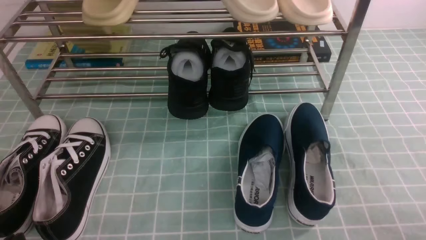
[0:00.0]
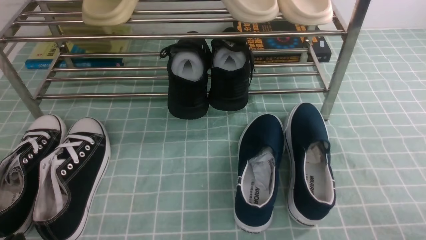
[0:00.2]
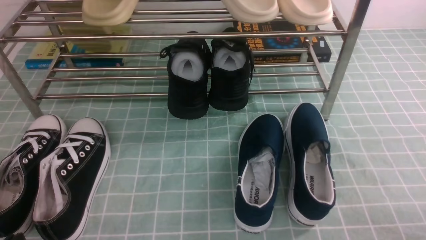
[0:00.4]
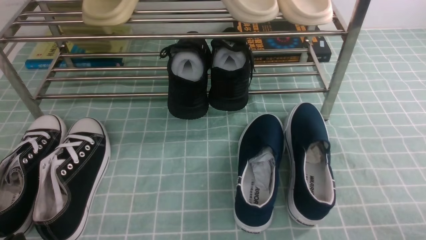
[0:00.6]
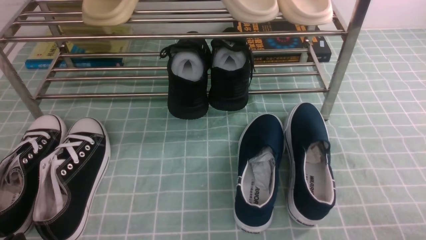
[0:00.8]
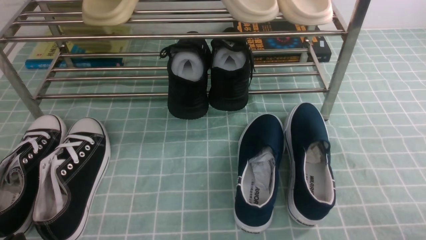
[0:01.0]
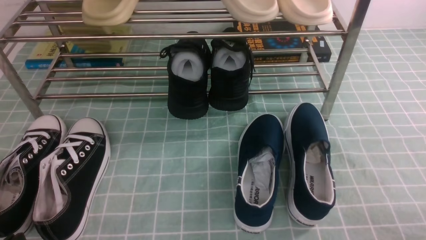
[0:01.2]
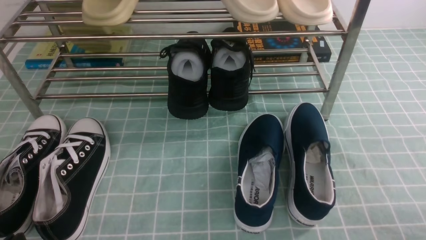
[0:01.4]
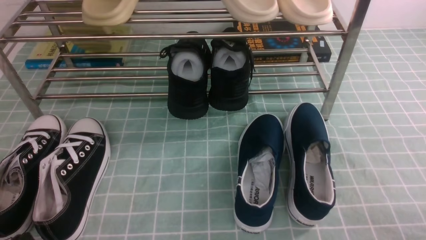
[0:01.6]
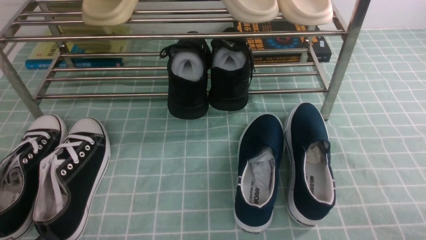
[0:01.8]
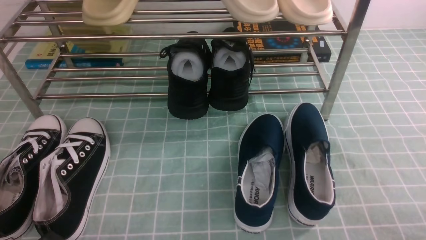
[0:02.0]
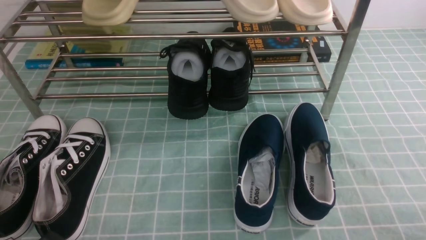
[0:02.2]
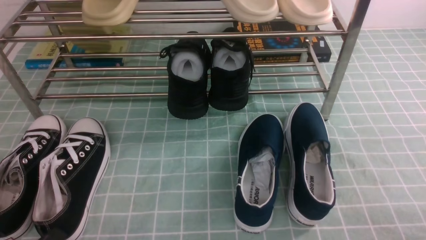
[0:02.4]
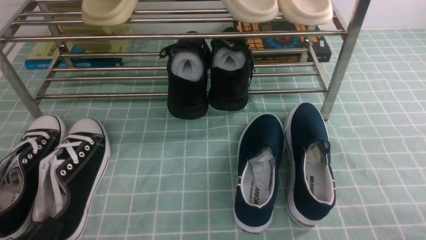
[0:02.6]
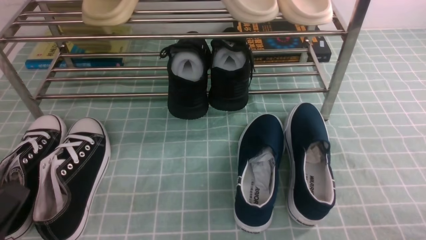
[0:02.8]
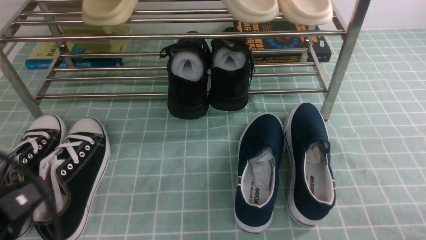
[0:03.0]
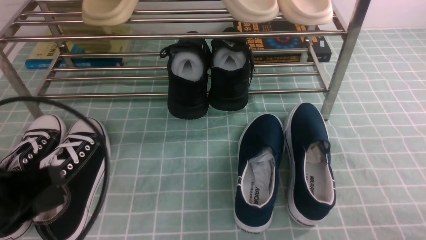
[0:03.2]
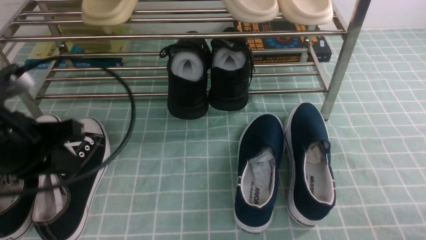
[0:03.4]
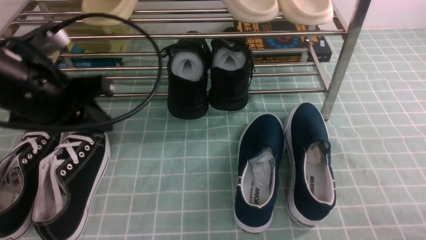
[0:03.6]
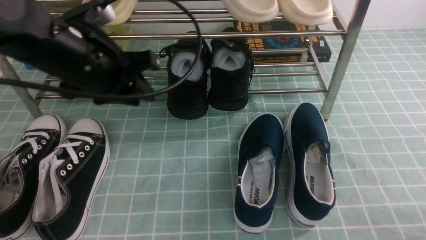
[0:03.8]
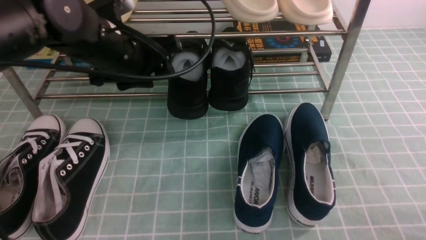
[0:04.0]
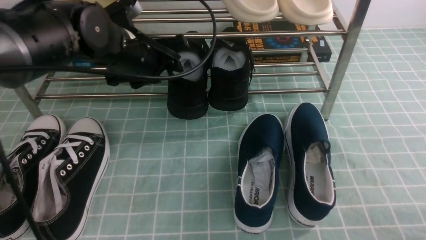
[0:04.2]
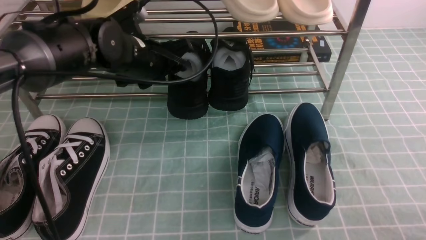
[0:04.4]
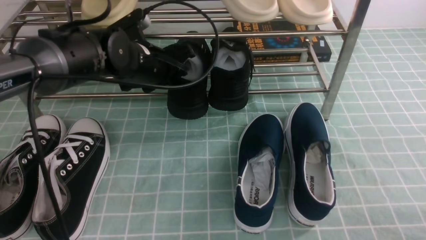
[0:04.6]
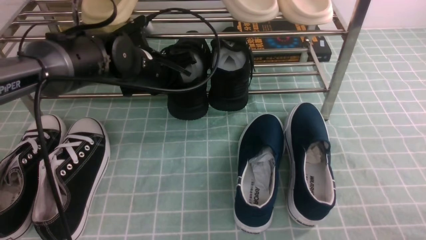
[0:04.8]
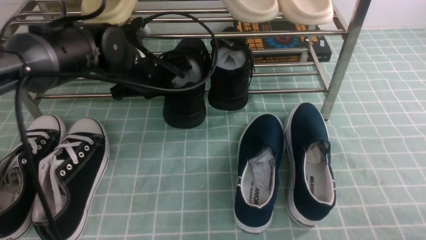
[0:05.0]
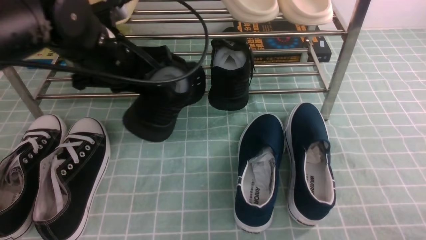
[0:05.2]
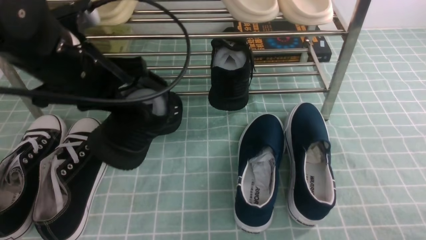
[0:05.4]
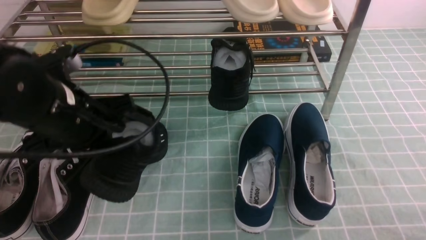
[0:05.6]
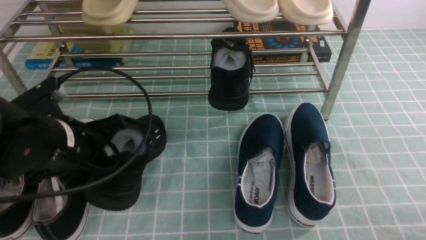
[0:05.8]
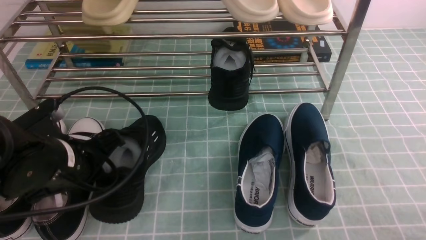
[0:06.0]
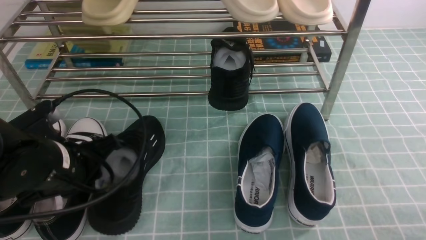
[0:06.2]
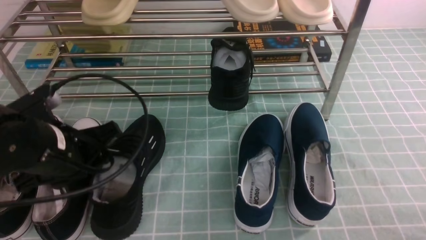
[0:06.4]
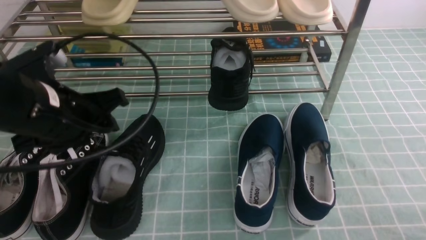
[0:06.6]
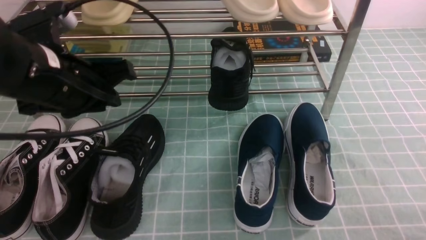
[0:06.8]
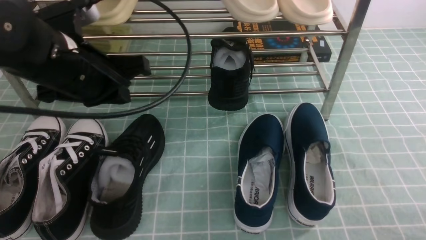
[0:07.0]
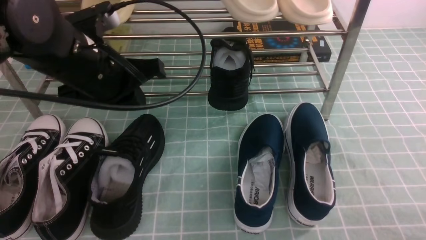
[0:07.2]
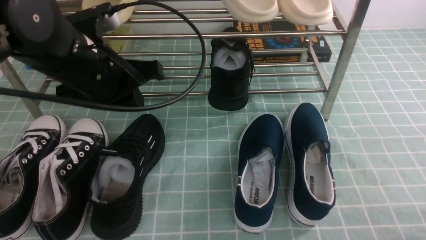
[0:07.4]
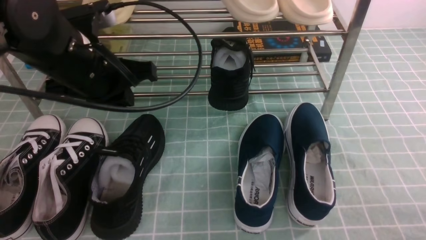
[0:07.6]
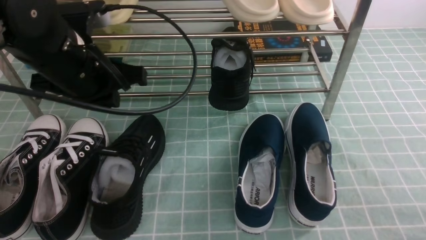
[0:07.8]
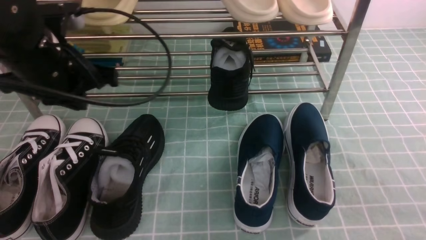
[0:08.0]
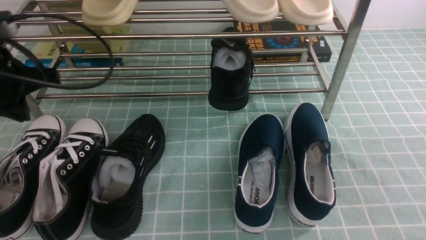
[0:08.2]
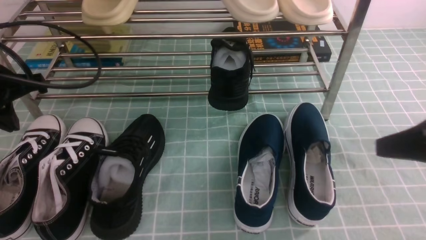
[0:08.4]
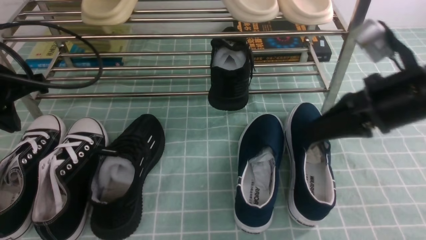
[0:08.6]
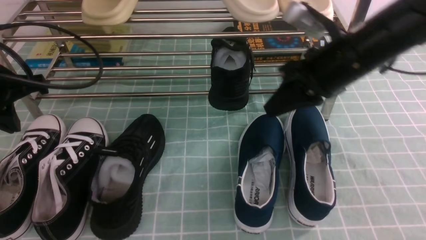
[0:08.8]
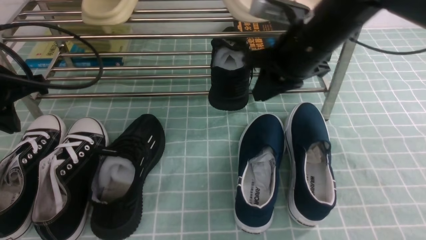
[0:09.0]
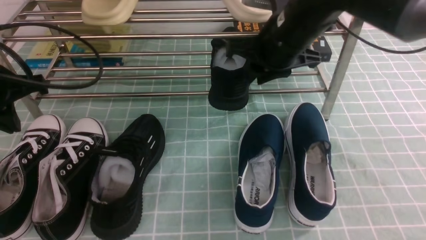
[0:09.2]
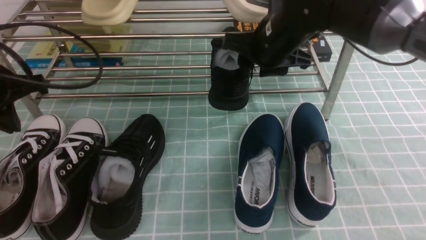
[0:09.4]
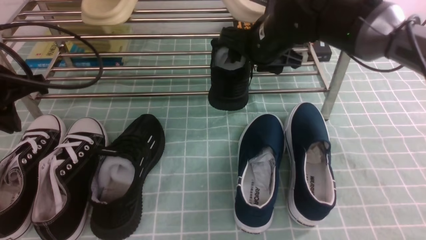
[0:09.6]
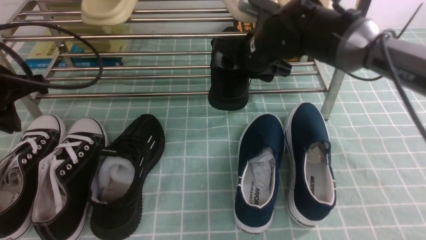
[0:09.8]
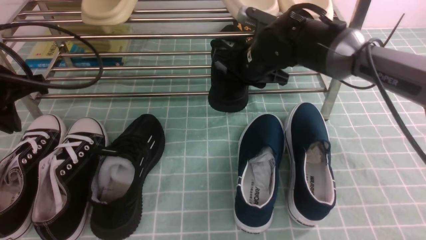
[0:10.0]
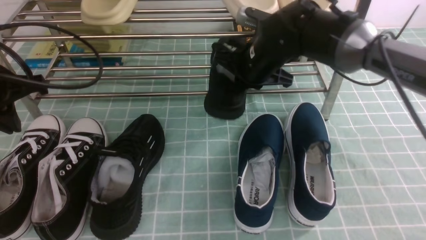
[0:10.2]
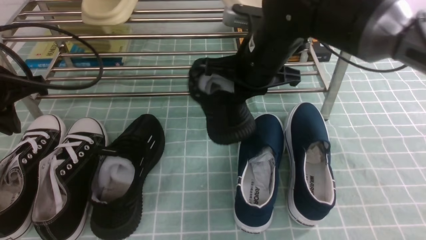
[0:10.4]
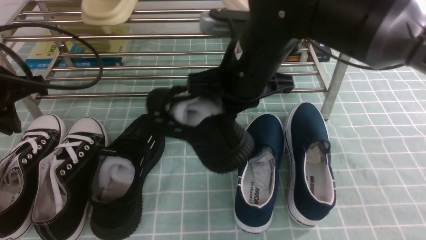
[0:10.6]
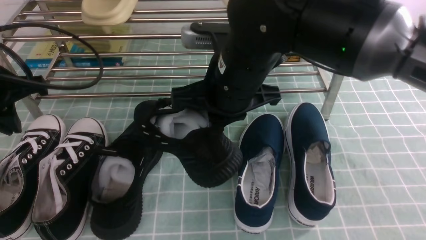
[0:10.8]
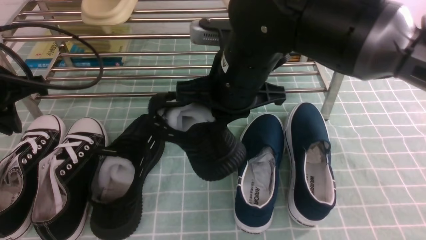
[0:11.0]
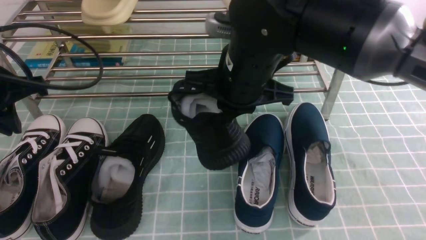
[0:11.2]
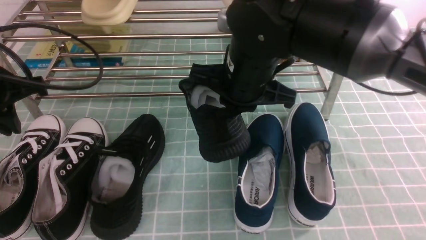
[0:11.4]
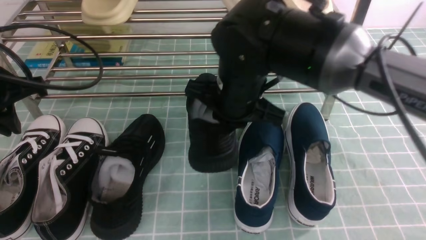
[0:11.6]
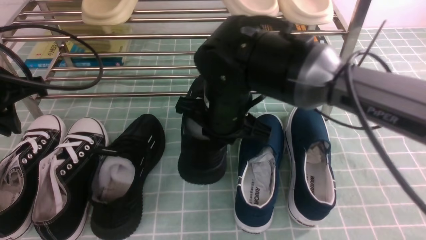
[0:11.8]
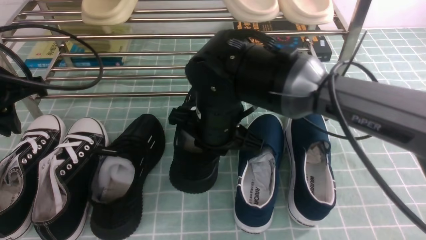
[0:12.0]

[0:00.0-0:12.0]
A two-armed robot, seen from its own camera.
Step, 0:00.0 to 0:04.6: use the left arm to clamp a shoe in the middle of the shoe rack.
Step, 0:04.8 to 0:06.8: Use your left arm to remove the clamped shoe from the shoe rack and put it down.
Step, 0:07.0 to 0:09.8: use the right arm to clamp a shoe in the middle of the shoe rack.
0:01.6 to 0:03.0: The left gripper travels upward by some 15 cm.
0:03.0 to 0:04.4: The left gripper is displaced forward and to the right by about 35 cm, and opens up.
0:04.4 to 0:06.0: The left gripper heads backward and to the left, covering about 15 cm, and closes its fingers.
0:06.0 to 0:07.6: The left gripper is displaced upward and forward by roughly 10 cm, and opens, then closes again.
0:07.6 to 0:09.0: The right gripper is displaced forward, to the left and upward by approximately 40 cm, while the left gripper heads to the left, covering roughly 15 cm.
0:09.0 to 0:10.4: The right gripper goes some 5 cm to the left, goes forward and returns, some 5 cm each way, and opens, then closes once more.
0:10.4 to 0:12.0: The right gripper heads to the left, backward and downward, covering roughly 10 cm.

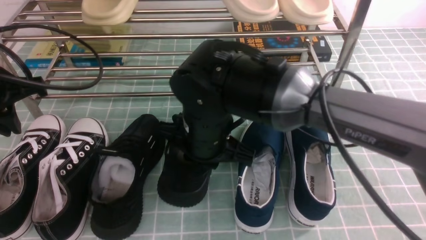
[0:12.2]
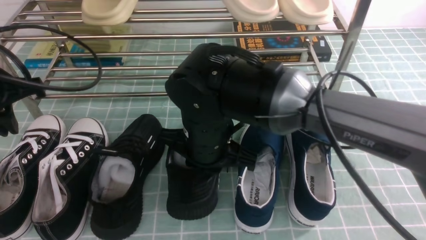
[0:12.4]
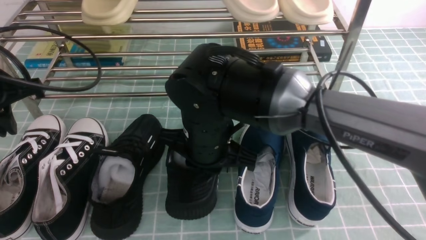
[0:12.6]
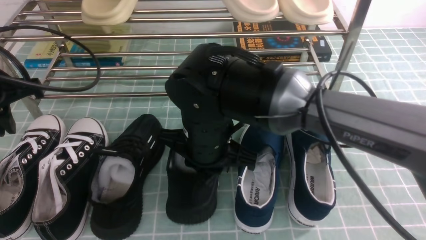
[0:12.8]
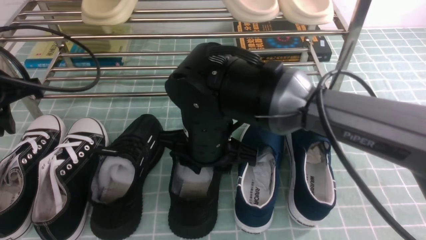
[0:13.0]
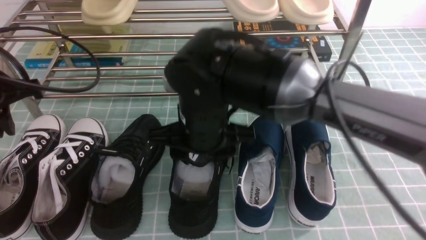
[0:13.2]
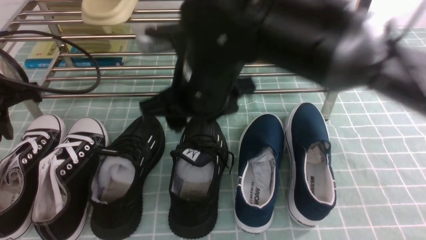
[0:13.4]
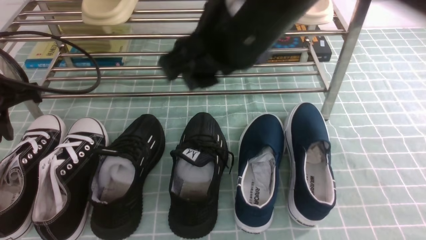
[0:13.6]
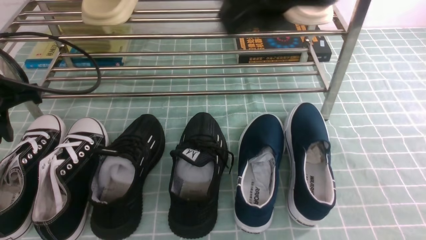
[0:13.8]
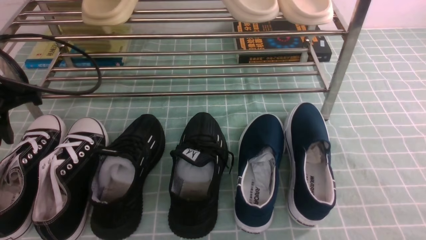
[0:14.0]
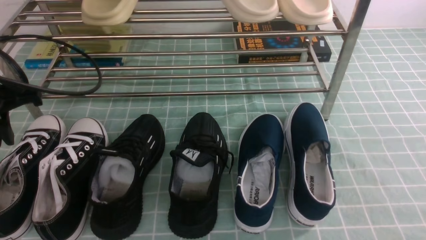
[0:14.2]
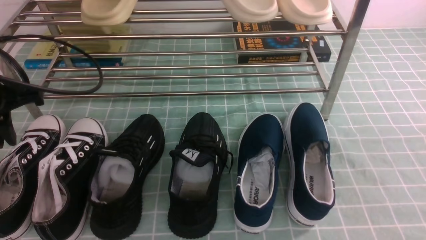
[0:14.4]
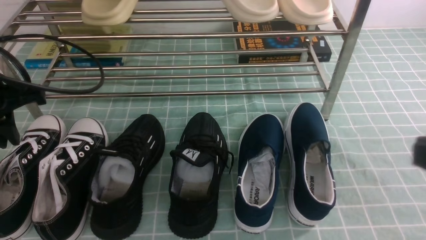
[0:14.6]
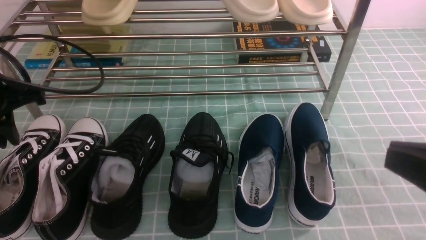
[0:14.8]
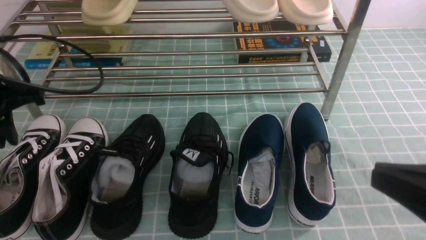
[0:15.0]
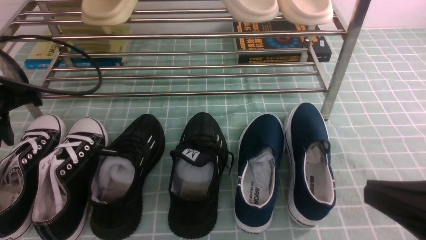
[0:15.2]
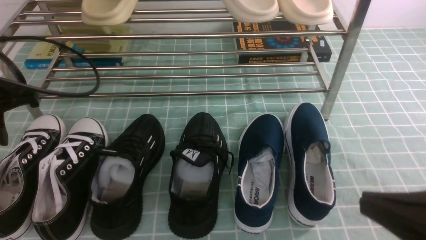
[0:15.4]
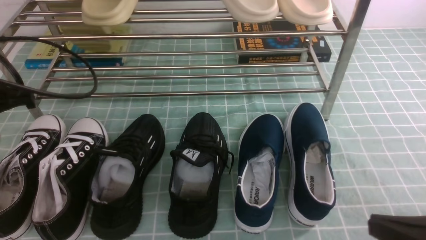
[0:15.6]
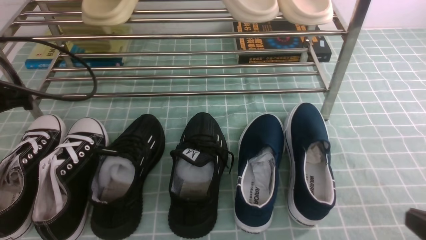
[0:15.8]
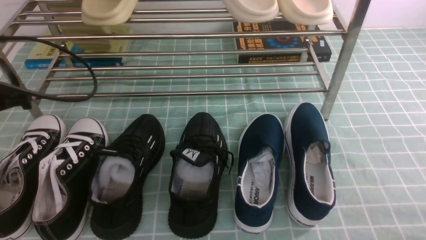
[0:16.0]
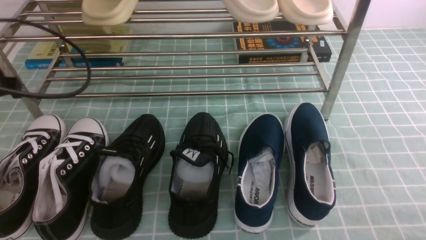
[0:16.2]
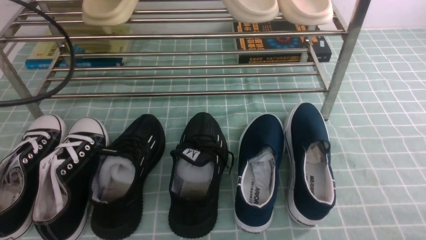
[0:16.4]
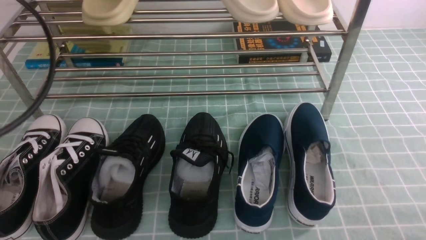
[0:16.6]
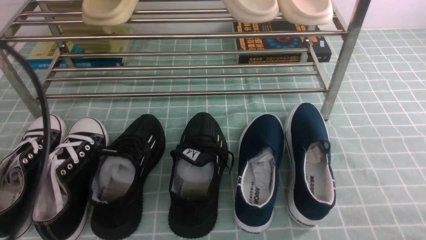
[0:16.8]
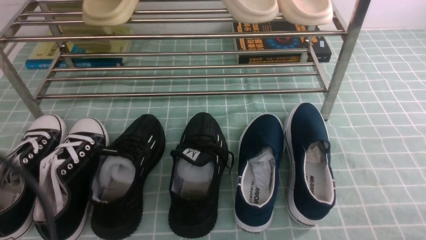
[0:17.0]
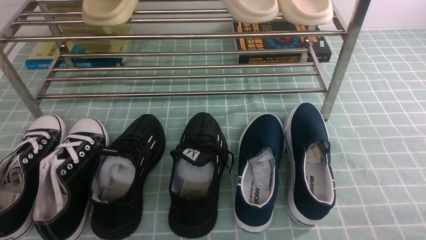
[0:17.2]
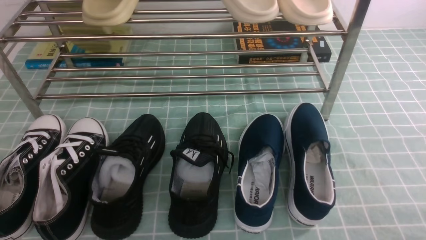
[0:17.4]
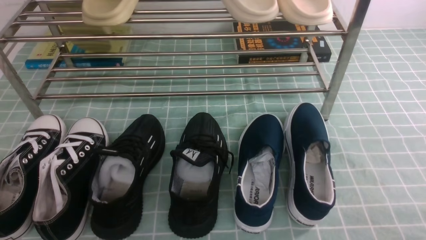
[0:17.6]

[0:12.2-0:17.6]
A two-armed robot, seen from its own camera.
0:12.2 to 0:13.6: The right gripper travels upward by about 20 cm, and opens.
0:13.6 to 0:15.0: The right gripper moves to the right, backward and downward, some 25 cm, and closes.
0:15.0 to 0:16.2: The right gripper travels downward and to the right by roughly 20 cm.
0:16.2 to 0:17.6: The left gripper travels backward and downward by roughly 25 cm.
